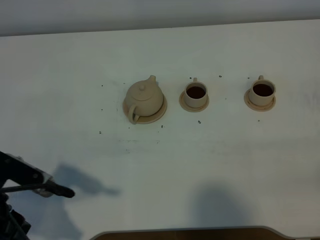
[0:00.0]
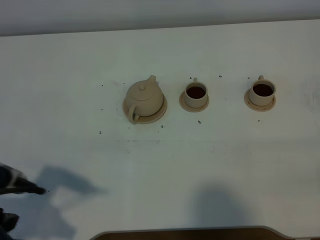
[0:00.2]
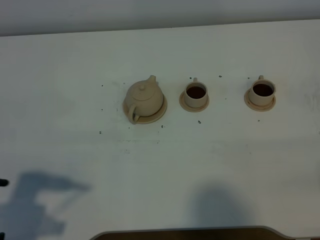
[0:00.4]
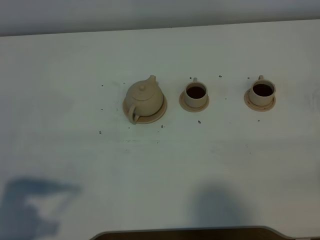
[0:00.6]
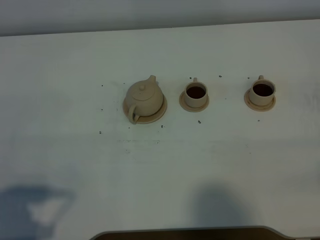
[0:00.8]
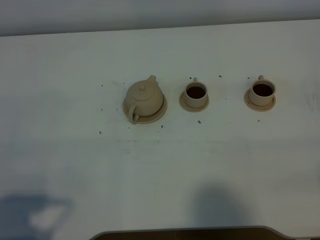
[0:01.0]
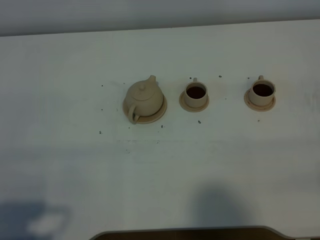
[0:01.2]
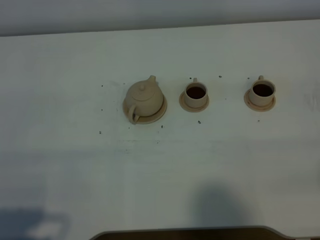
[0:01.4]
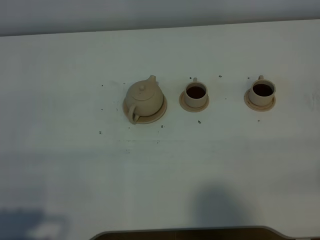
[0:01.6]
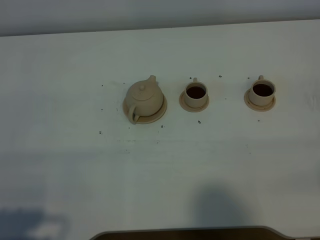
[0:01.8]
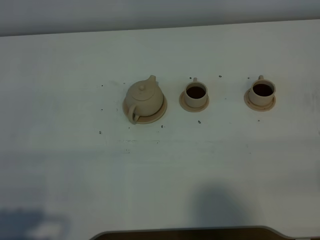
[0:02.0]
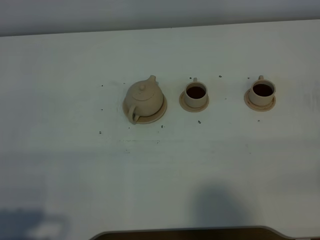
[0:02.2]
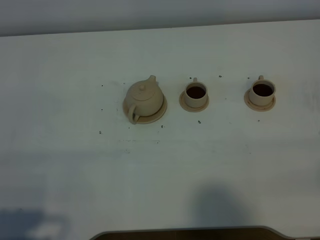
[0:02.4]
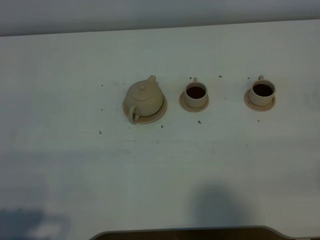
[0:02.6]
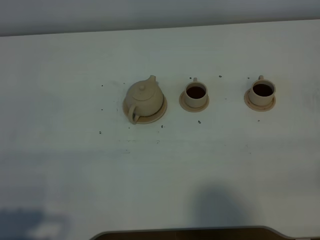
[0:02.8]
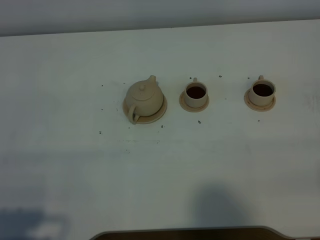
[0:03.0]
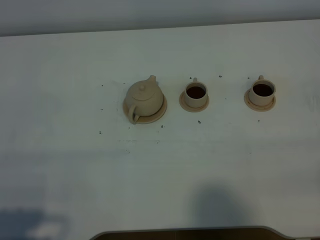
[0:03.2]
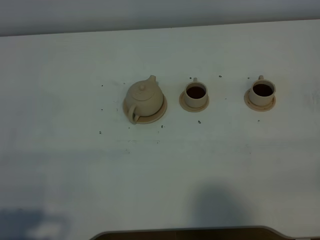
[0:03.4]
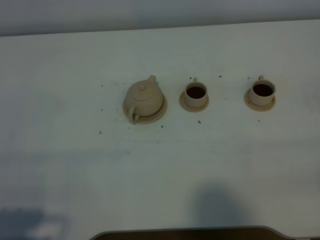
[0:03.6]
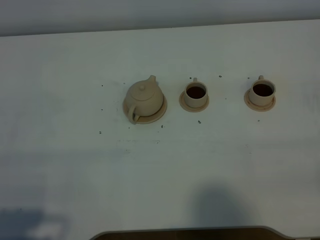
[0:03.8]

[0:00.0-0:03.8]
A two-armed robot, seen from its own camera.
Task of the whole recording: grasp the brown teapot and pour the tea into the two brown teacups one by one, put the brown teapot back in its original place.
0:00.0 to 0:01.2: The left gripper travels backward and to the left by approximately 10 cm.
0:01.2 to 0:03.8: Neither gripper changes place.

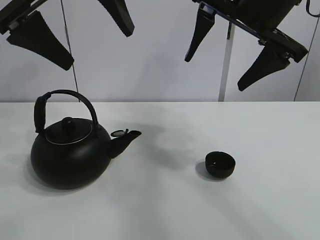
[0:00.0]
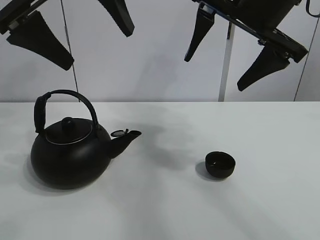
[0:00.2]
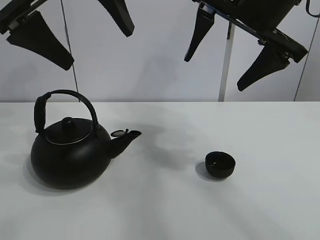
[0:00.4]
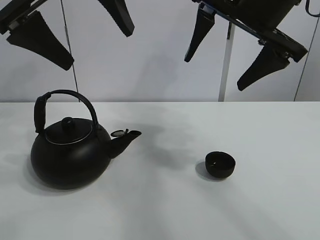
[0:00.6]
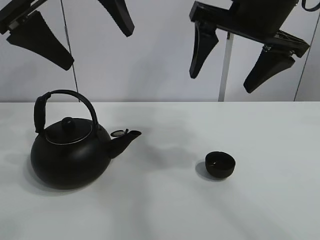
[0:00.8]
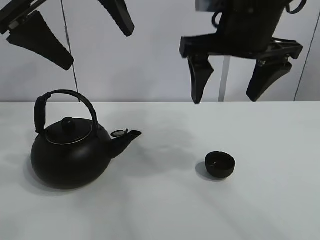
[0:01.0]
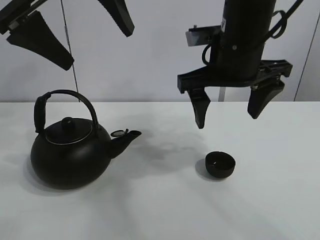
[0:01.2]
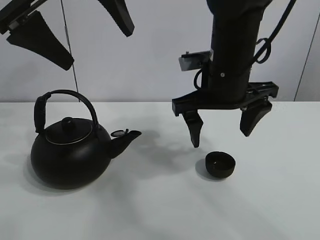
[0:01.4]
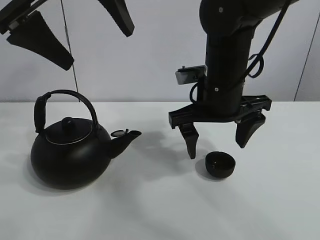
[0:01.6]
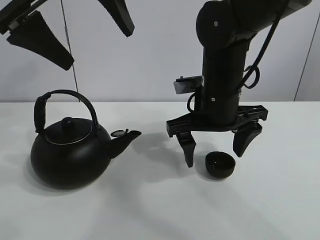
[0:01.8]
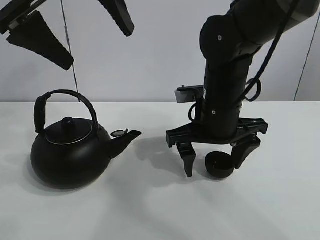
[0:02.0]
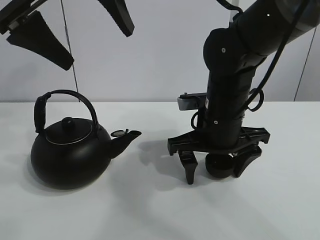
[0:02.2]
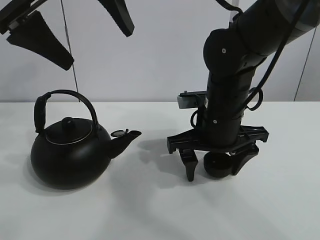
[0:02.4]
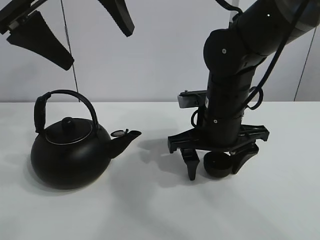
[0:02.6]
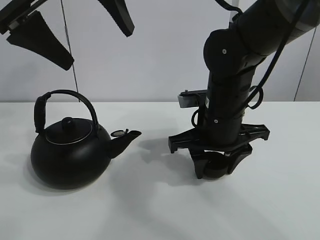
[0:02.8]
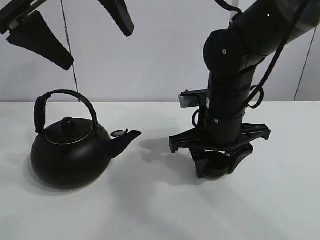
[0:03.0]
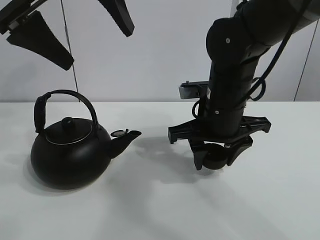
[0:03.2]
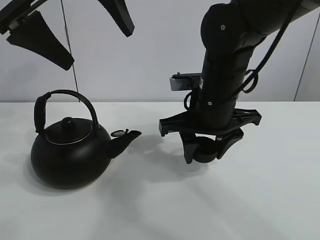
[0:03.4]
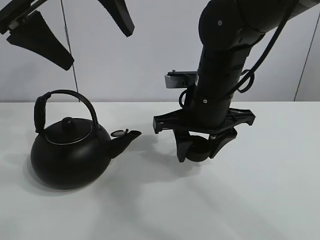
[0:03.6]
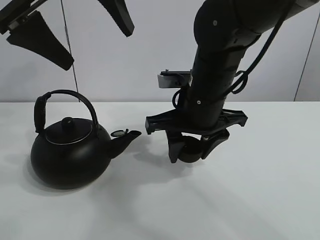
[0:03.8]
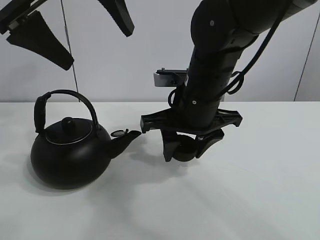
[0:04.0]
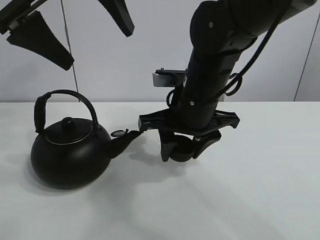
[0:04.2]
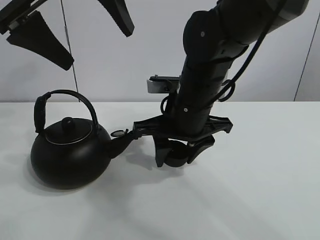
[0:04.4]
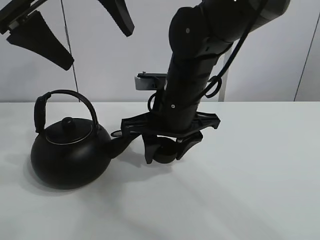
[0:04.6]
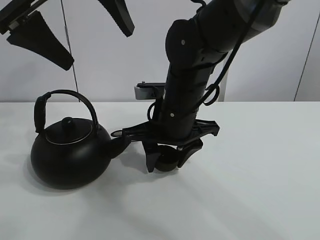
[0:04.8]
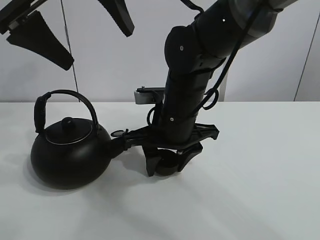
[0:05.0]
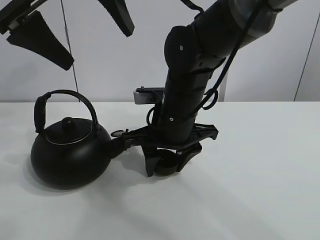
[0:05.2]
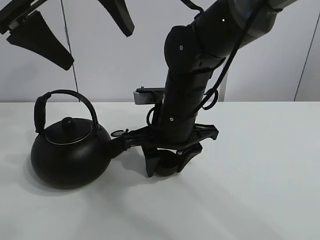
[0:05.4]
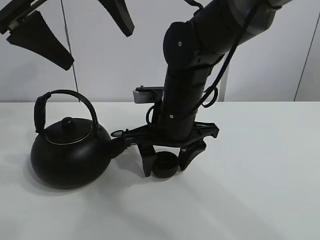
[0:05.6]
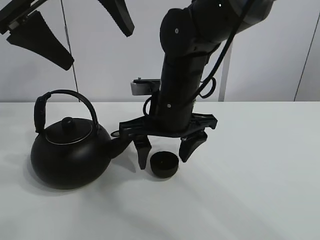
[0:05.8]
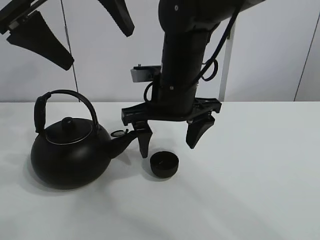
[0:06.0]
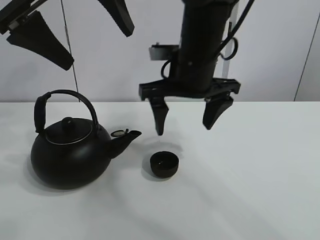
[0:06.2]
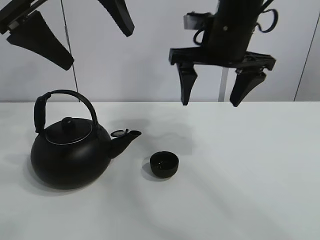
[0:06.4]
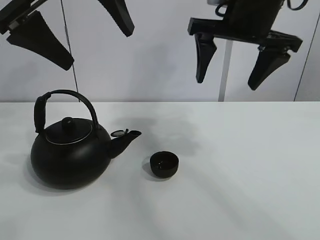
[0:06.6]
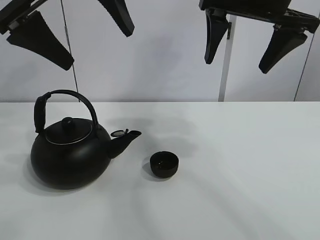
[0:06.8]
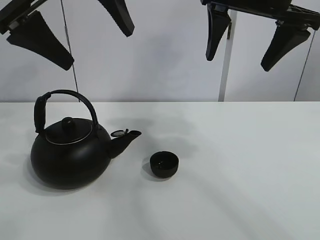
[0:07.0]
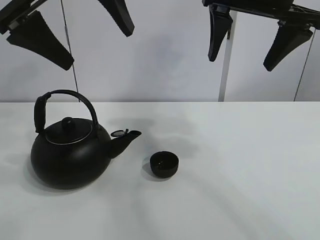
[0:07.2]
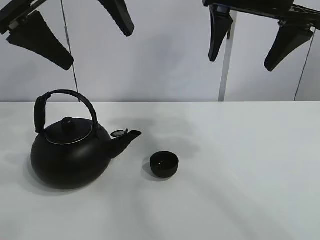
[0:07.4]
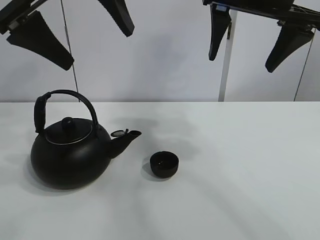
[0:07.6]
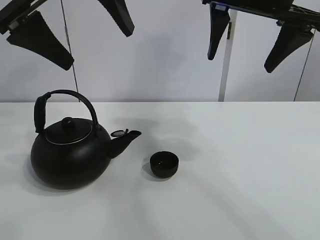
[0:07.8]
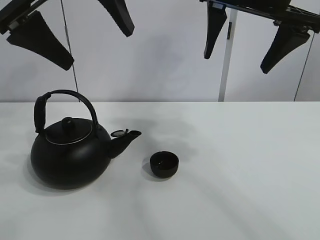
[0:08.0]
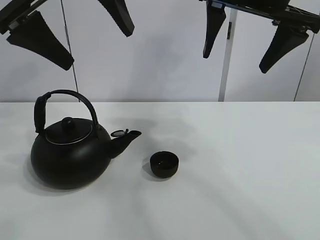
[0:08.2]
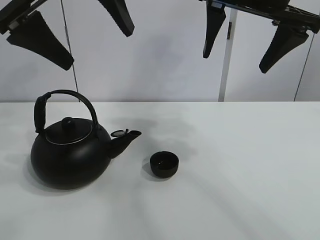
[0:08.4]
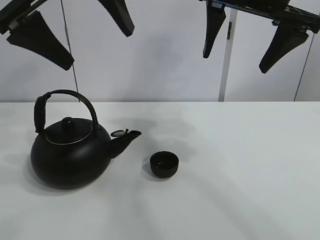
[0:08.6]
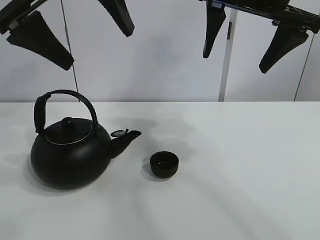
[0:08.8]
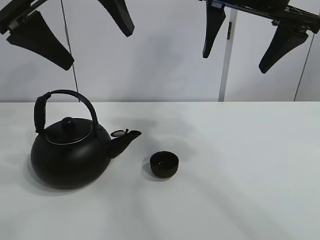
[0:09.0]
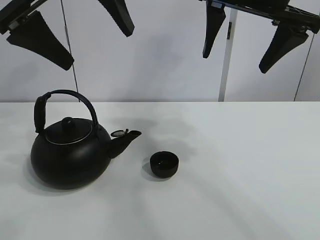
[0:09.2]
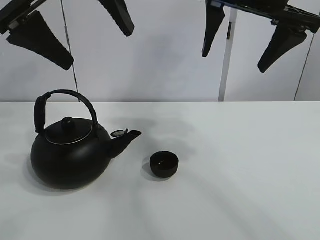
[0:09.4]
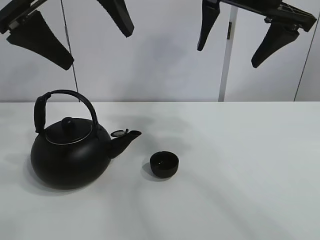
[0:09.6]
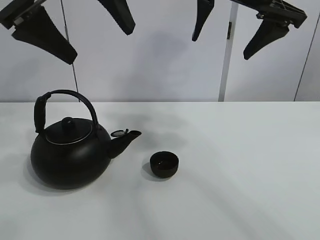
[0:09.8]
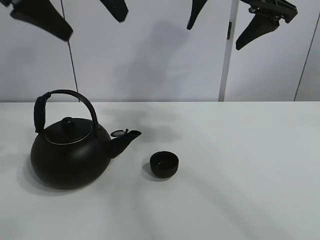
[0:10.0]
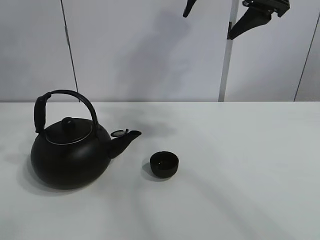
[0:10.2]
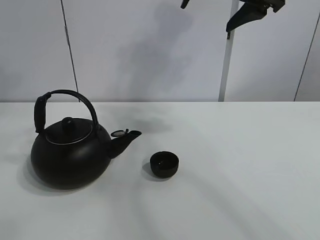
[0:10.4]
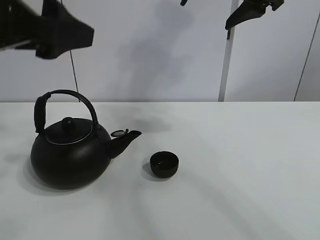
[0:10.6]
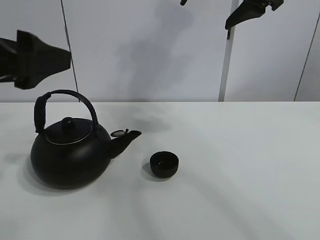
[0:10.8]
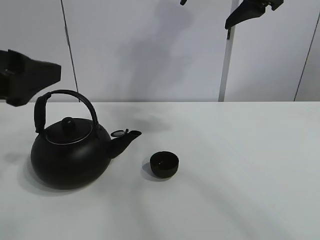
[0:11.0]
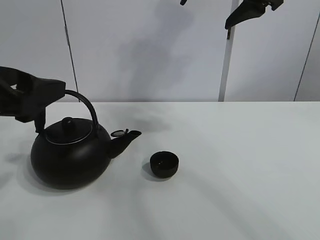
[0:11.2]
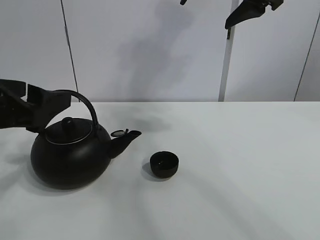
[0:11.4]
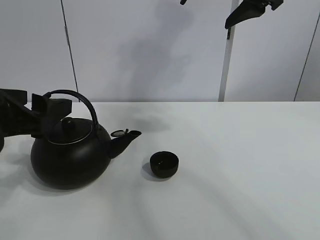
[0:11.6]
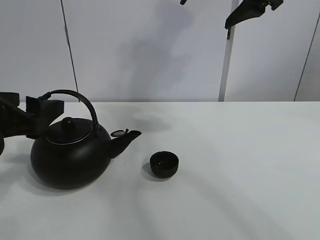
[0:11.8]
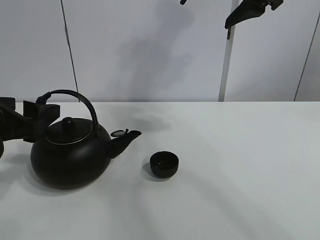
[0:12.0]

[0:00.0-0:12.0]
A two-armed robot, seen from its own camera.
Task of the whole recording: pour tea into the teacup.
Step, 0:00.0 to 0:02.8: Pick up the teacup with the right gripper.
Step, 0:03.0 to 0:05.4: Place the teacup in the center of view with the right gripper.
0:01.6 to 0:03.0: The right gripper closes its fingers.
0:03.0 to 0:04.4: The right gripper ends up roughly 5 cm from where it was.
0:04.4 to 0:06.0: The right gripper opens up.
0:06.0 to 0:07.6: The right gripper heads upward and to the right, covering roughly 20 cm.
0:07.6 to 0:09.0: Both grippers stay put.
0:10.4 to 0:12.0: The left gripper is displaced downward by some 20 cm.

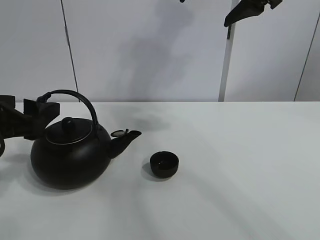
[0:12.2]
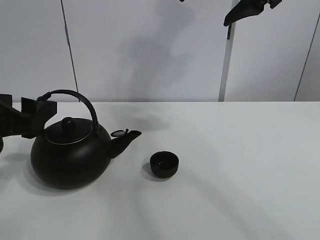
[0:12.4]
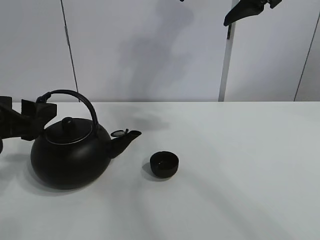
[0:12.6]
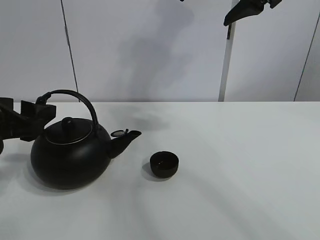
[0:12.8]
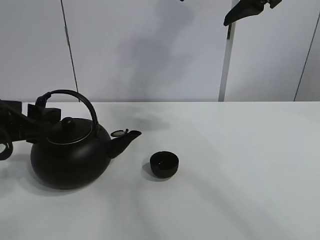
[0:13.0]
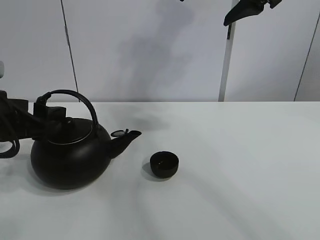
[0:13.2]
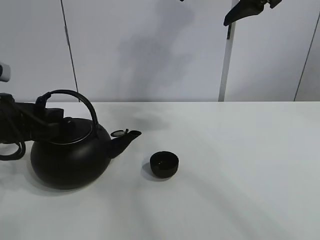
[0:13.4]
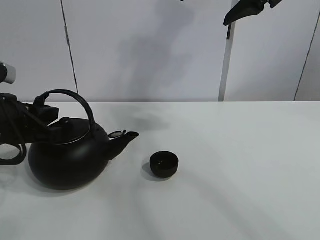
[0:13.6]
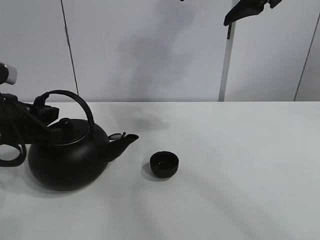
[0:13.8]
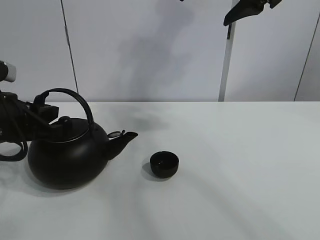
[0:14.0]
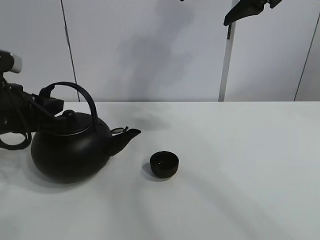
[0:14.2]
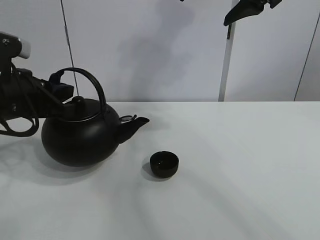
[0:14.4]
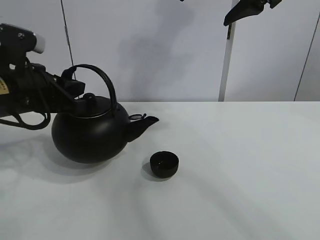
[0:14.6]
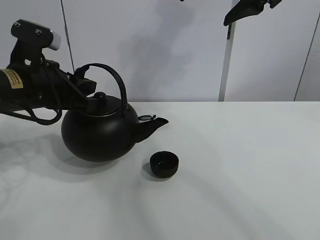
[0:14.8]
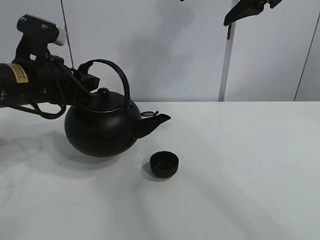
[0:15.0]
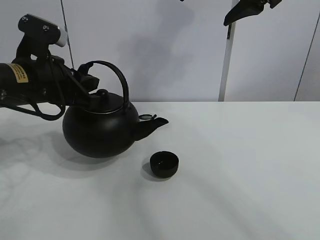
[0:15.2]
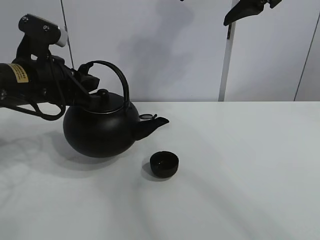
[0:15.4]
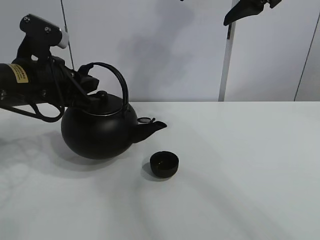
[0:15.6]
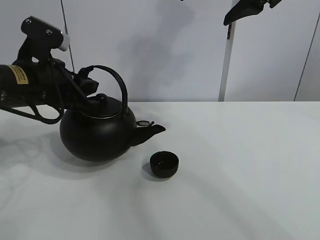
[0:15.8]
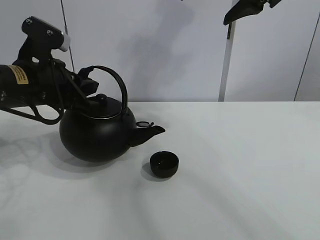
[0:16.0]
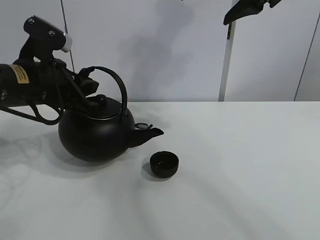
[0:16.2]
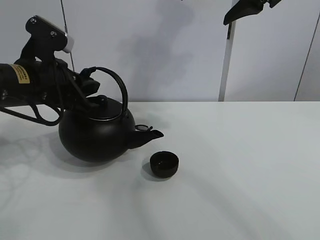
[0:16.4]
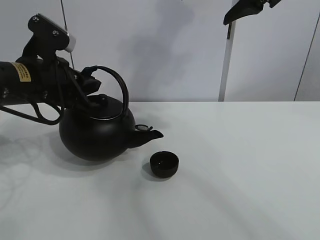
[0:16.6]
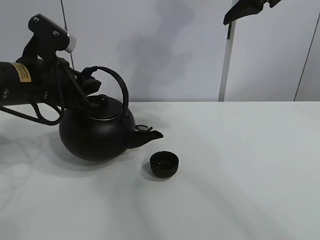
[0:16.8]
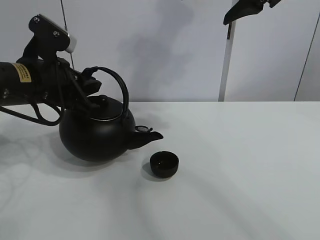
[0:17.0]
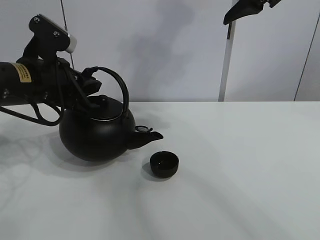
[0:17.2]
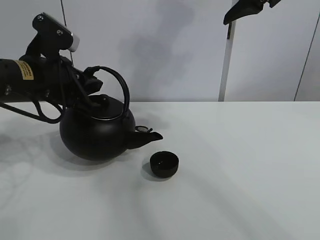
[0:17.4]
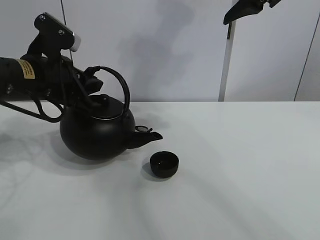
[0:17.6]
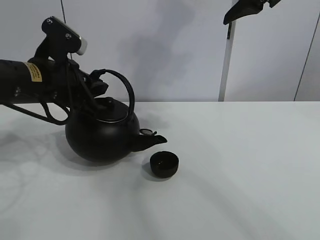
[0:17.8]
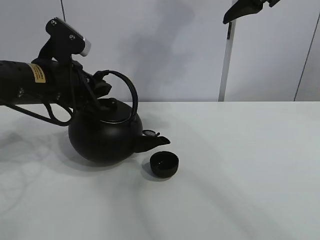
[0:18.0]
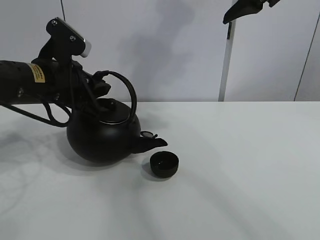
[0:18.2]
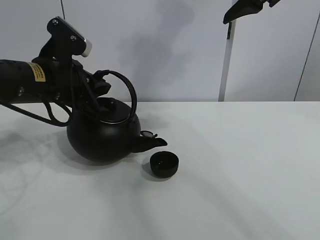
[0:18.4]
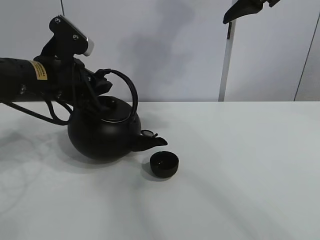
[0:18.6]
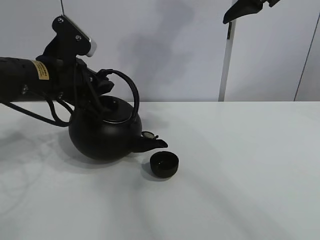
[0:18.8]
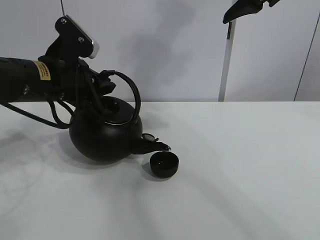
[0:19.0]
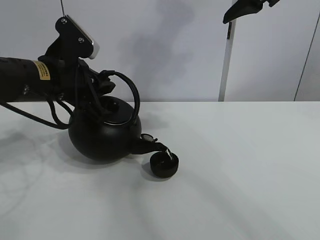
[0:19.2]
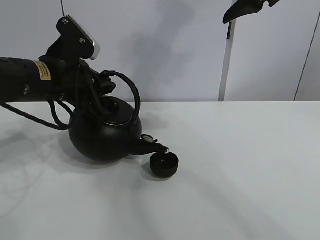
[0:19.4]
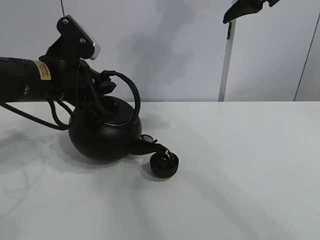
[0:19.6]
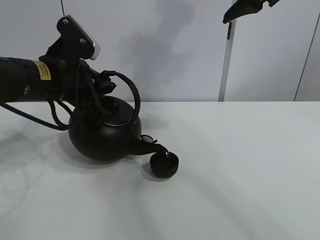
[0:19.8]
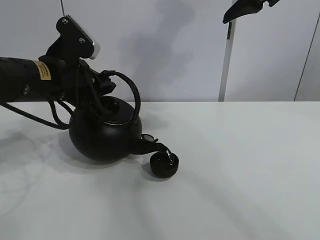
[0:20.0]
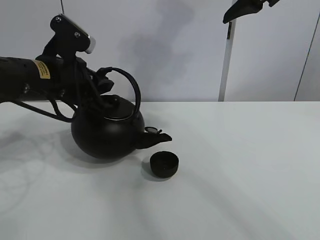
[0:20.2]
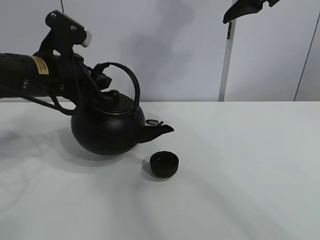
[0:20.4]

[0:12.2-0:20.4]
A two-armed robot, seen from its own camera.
Task of the whole recording: pour tea into the teacup.
Step, 0:14.0 to 0:20.2: Pour tea into the teacup with the left gripper.
0:12.2 to 0:13.8: The left gripper closes.
0:13.8 to 0:15.4: The left gripper heads to the right and forward, covering roughly 5 cm.
0:15.4 to 0:18.8: The grippers make only small movements.
0:18.8 to 0:20.4: The grippers stay close to where they were, moving slightly.
